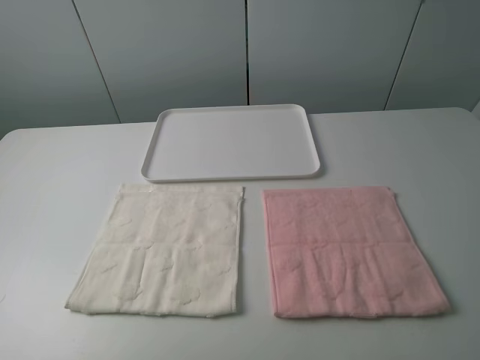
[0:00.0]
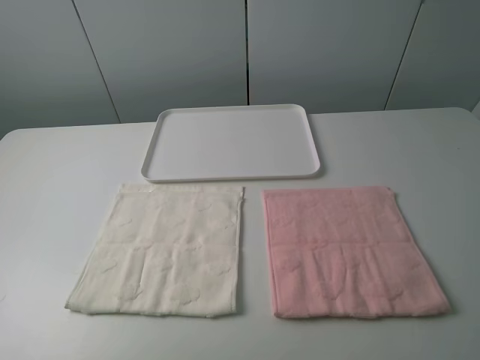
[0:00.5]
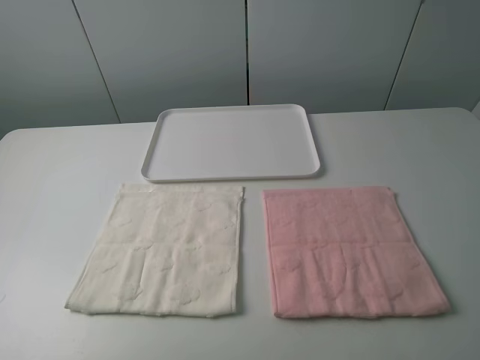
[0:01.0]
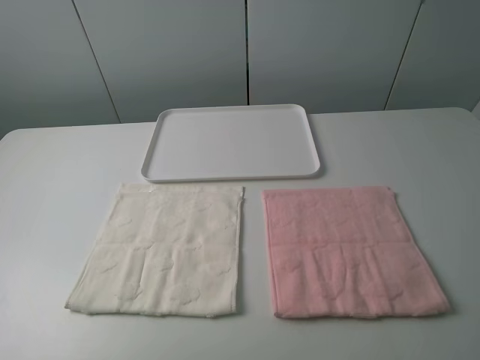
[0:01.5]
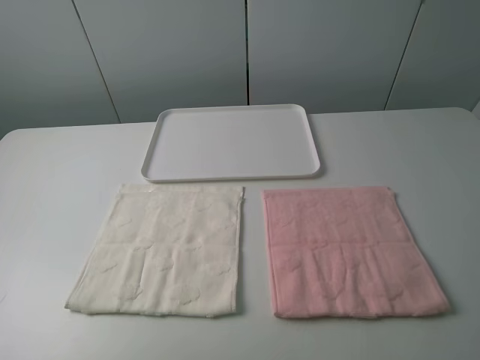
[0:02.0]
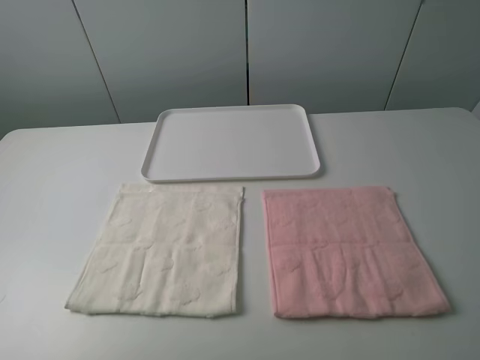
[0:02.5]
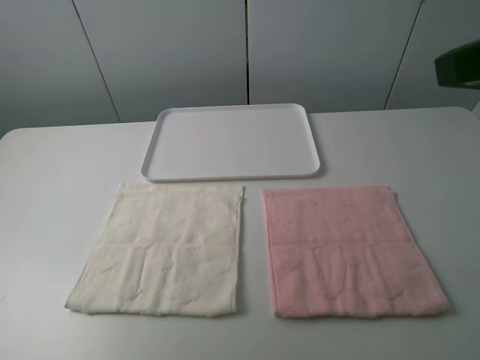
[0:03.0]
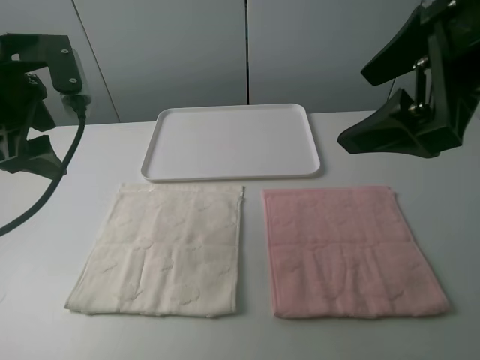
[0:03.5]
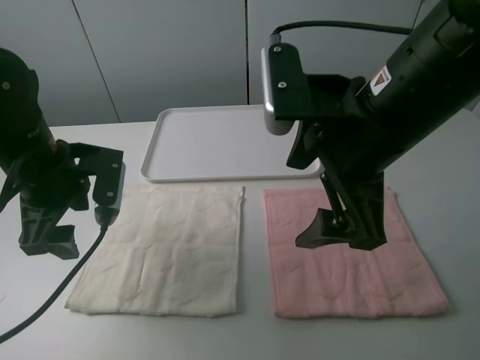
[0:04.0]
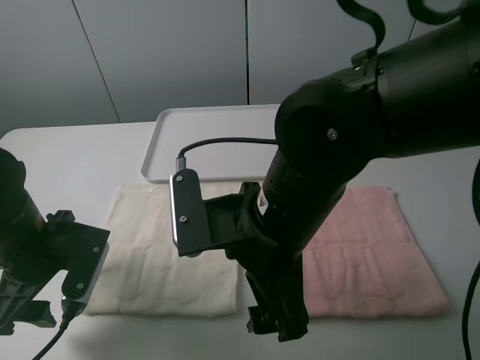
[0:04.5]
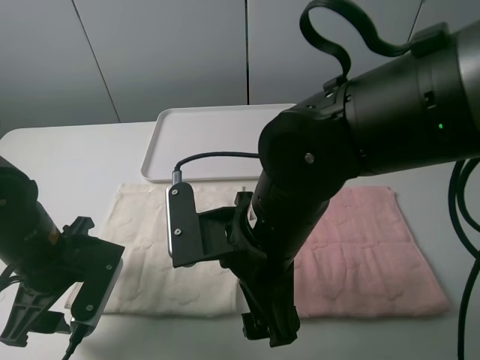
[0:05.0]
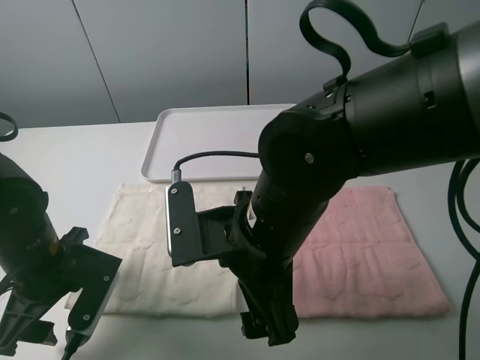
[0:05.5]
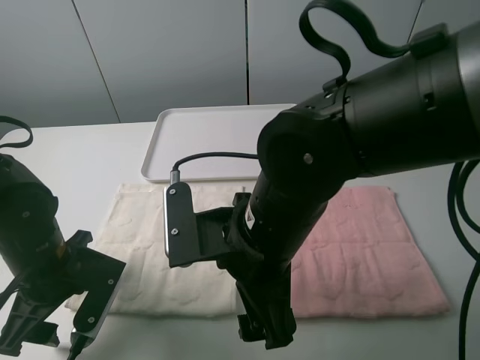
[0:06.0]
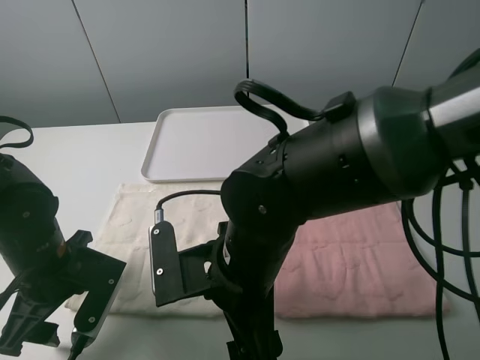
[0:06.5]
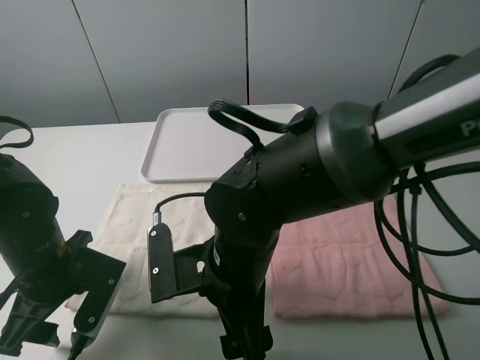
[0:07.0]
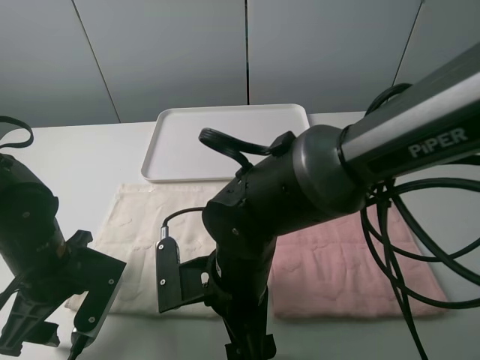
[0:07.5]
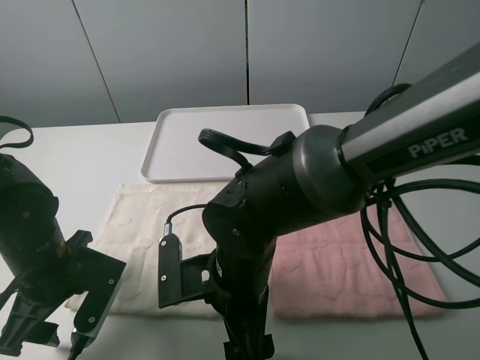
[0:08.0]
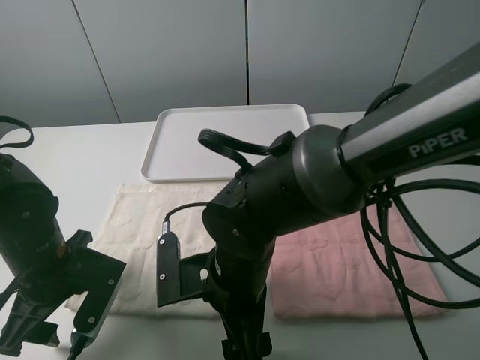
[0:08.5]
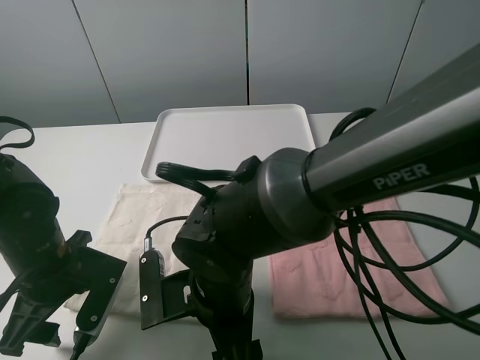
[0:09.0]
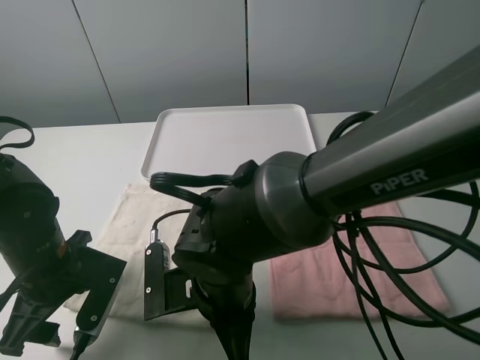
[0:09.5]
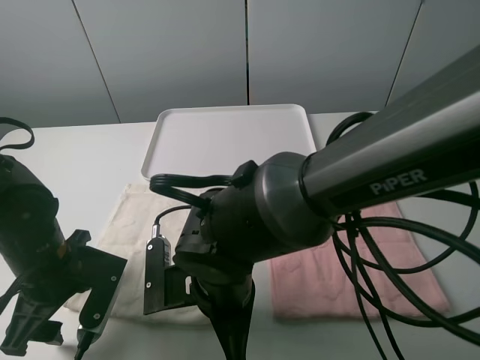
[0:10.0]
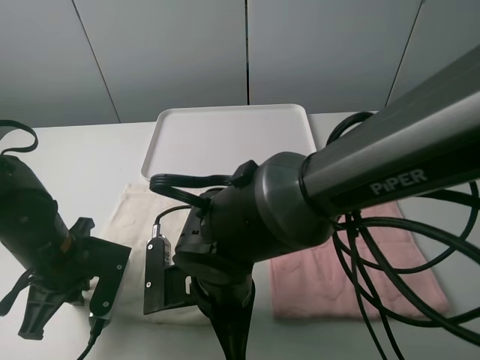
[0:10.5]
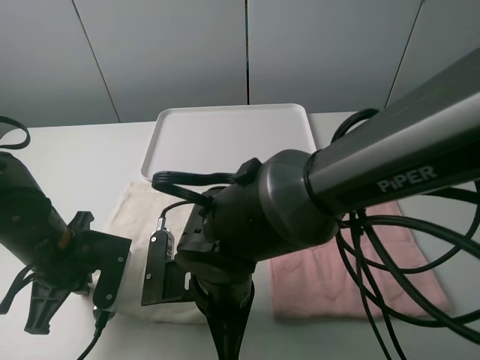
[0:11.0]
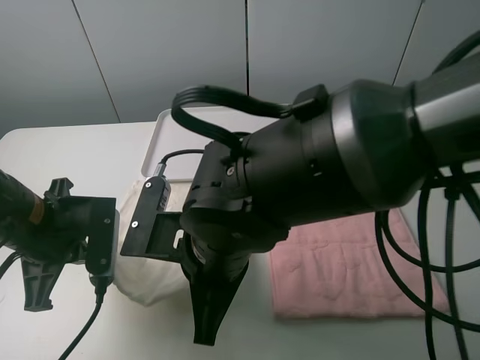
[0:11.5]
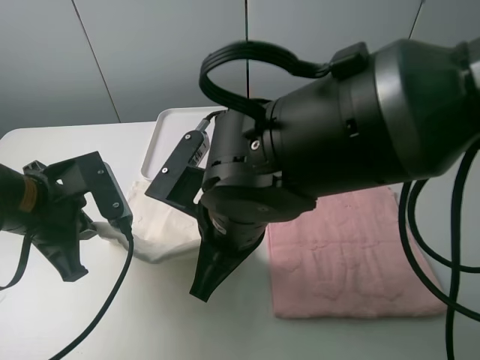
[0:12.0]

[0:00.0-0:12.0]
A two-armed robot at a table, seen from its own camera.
Task of the whole recording: fold one of the towels by two grippers and place it on the tray,then fold another towel by two grippers and place it on the folded towel.
Step, 0:00.0 to 0:10.5: Grasp the white towel with the left gripper.
0:02.0 to 0:04.0: The left gripper shifts about 25 cm forward and downward; the right gripper shifts some 25 cm forward and to the left.
0:04.0 to 0:06.0: The left gripper travels downward and backward by some 10 cm. Meanwhile the right gripper heads downward and to the left, covering roughly 10 cm.
0:06.0 to 0:08.0: The right gripper shifts about 5 cm downward.
0:08.0 to 0:10.0: The right gripper closes.
0:10.0 to 0:12.0: The grippers both shift upward by about 10 cm. The left gripper closes.

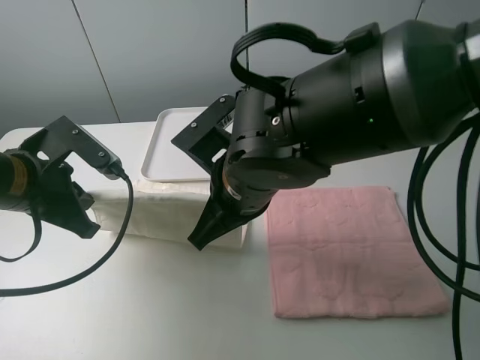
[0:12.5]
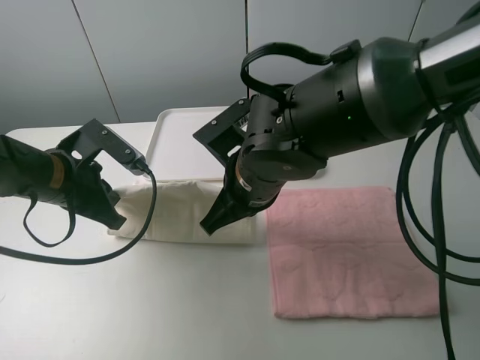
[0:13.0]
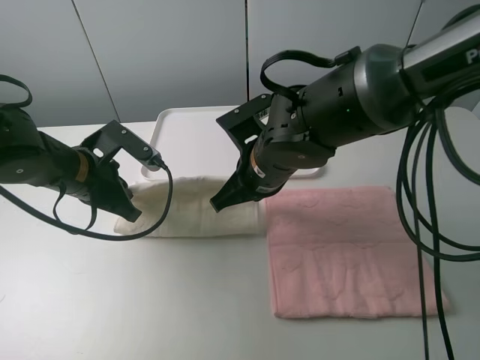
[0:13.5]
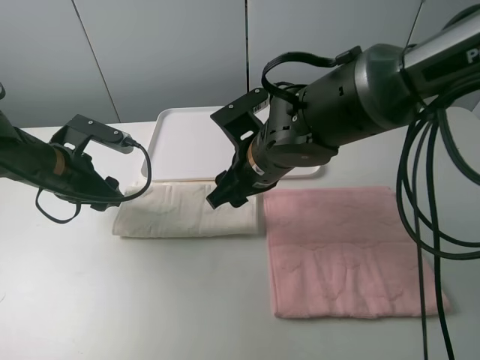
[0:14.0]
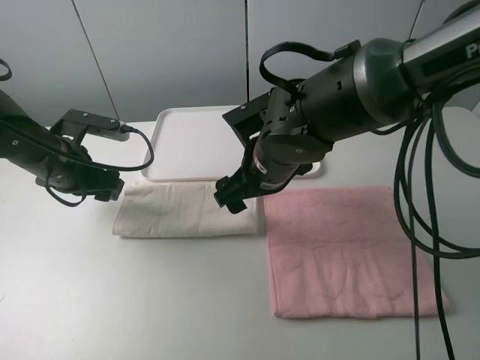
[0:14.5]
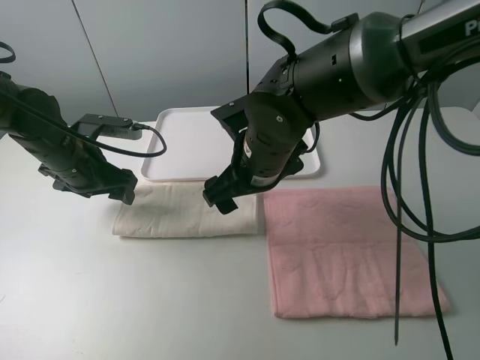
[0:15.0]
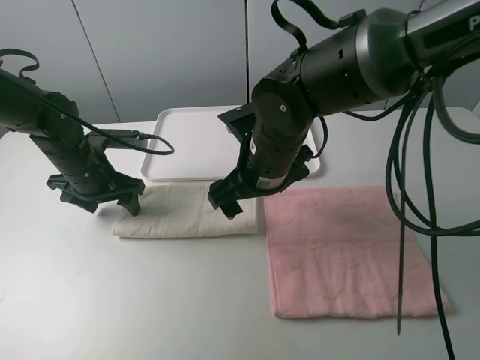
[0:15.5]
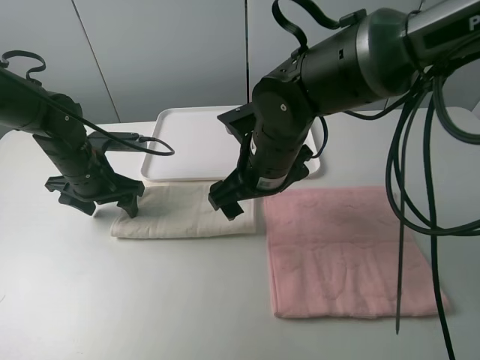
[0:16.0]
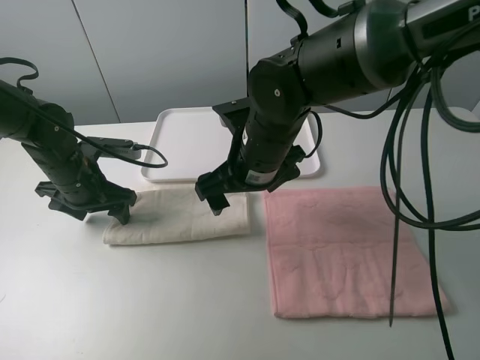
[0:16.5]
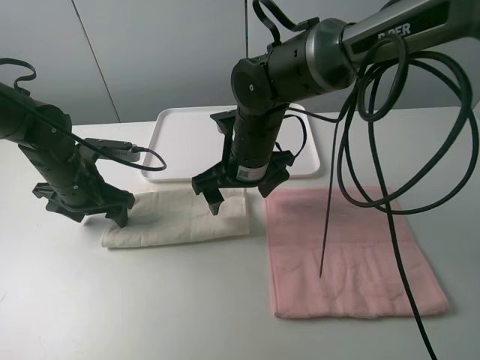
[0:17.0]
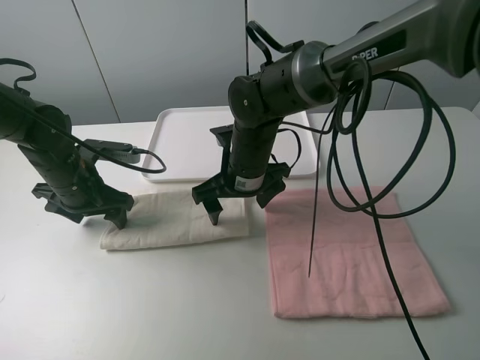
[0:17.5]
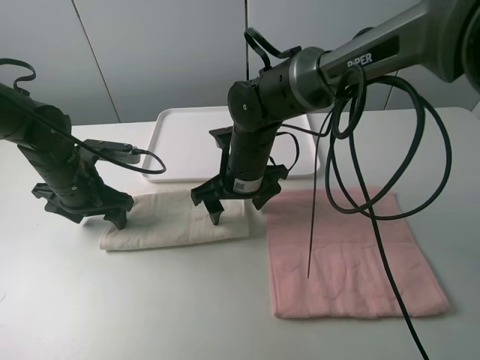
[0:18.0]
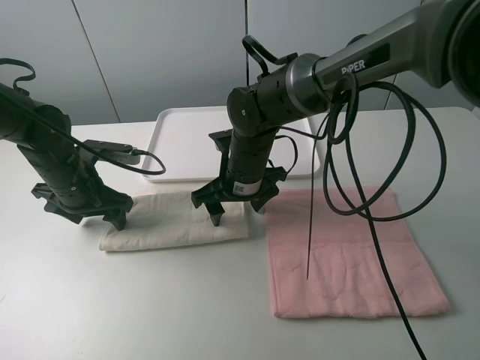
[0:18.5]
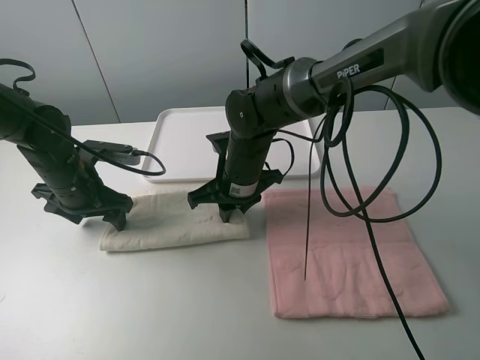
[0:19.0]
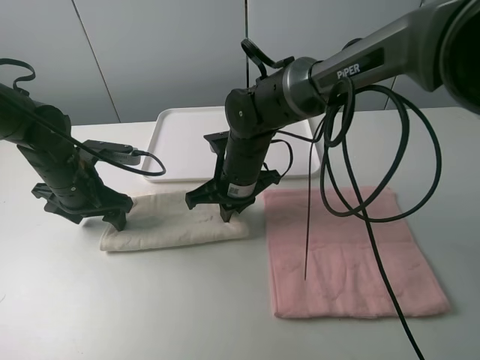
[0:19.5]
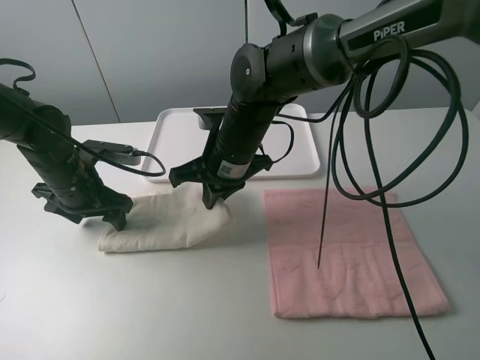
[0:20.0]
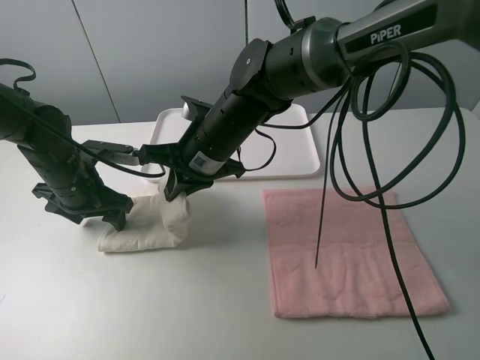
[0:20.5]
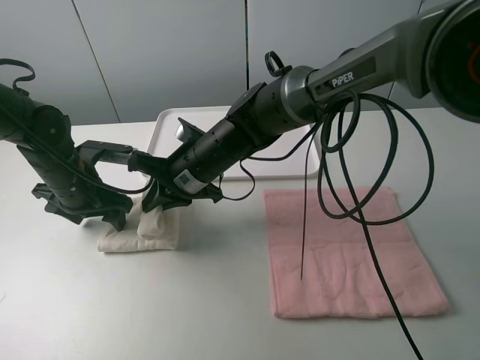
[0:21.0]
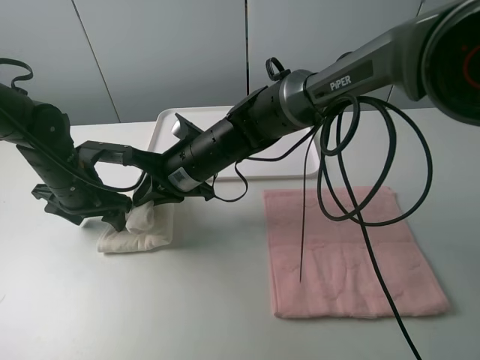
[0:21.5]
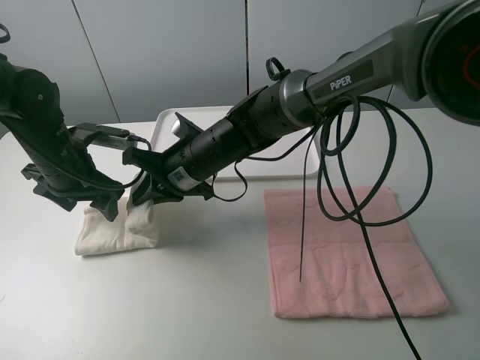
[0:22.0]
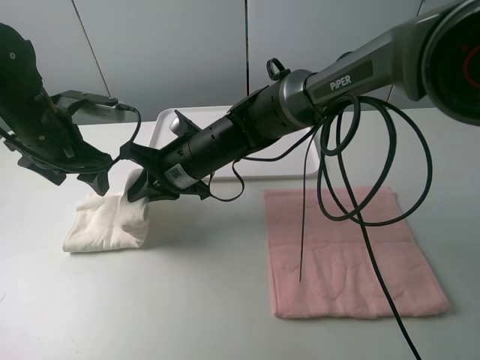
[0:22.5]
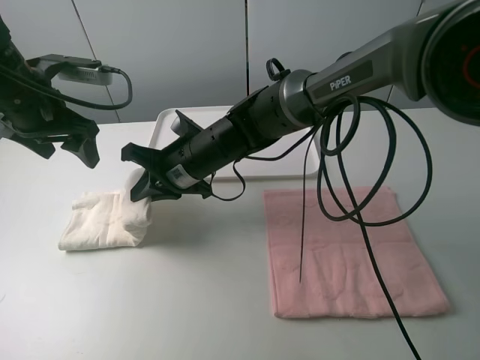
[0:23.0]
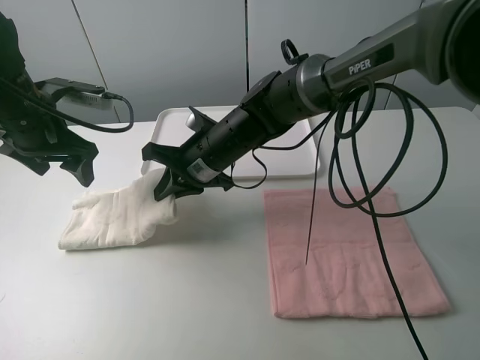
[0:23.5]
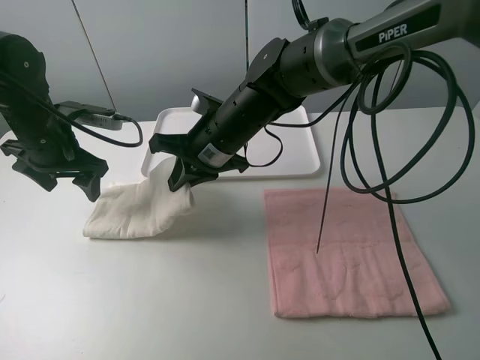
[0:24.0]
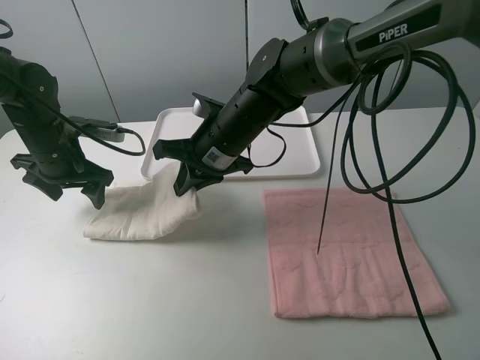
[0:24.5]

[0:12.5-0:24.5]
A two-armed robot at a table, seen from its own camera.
Task of the whole recording: fold one of the towels by two grippers and place it on the tray,then fold another towel by two grippers and place it on the folded towel.
Step, 0:14.5 to 0:15.5: Press the white towel with the left gripper.
Step, 0:16.0 to 0:19.5: Grasp the white towel with the right gripper.
0:12.5 to 0:14.5: Both grippers travel together forward, roughly 5 cm. The right gripper opens up; the left gripper opens its fingers.
0:16.5 to 0:18.5: The right gripper moves downward, about 5 cm.
0:18.5 to 0:20.5: The right gripper moves upward, some 5 cm, and closes up.
0:20.5 to 0:22.5: The left gripper moves upward, roughly 10 cm.
0:22.5 to 0:24.5: The right gripper ends up some 5 cm from where it was, while the left gripper heads downward, covering about 5 cm.

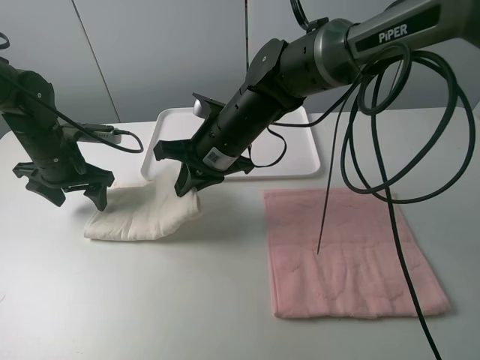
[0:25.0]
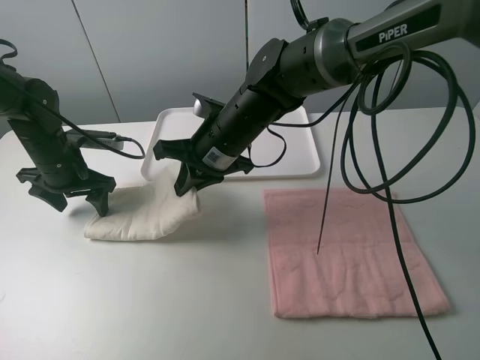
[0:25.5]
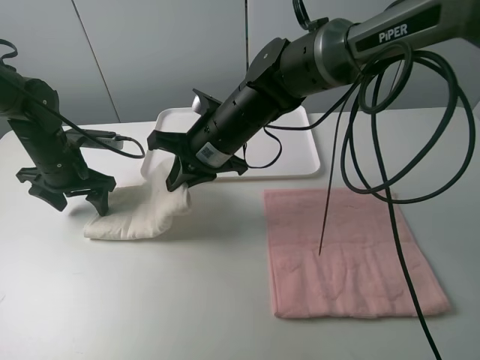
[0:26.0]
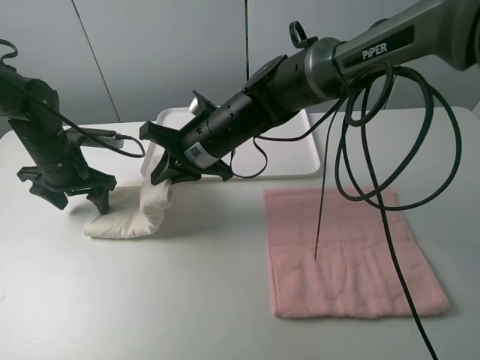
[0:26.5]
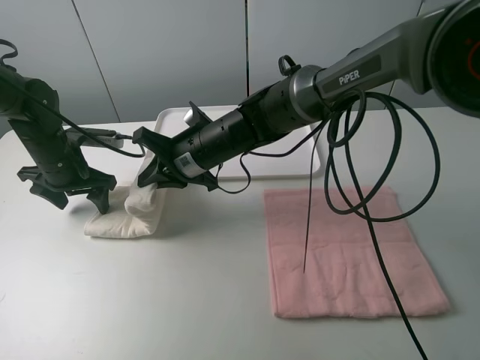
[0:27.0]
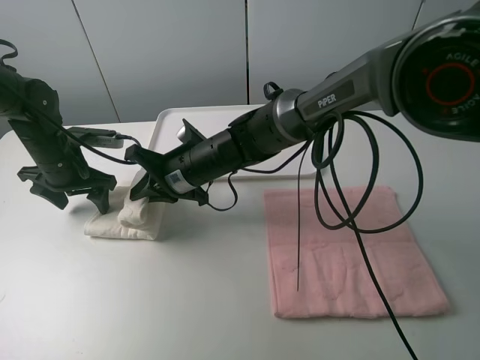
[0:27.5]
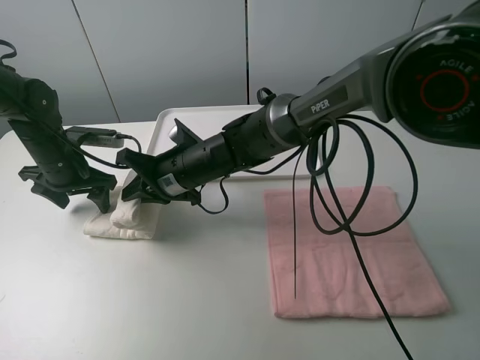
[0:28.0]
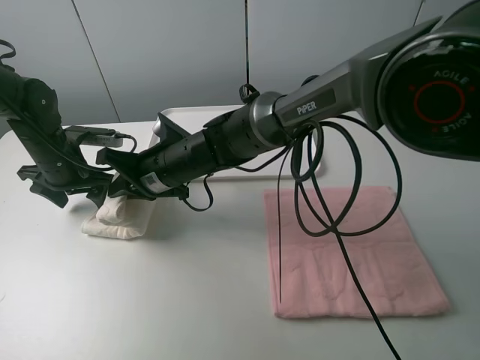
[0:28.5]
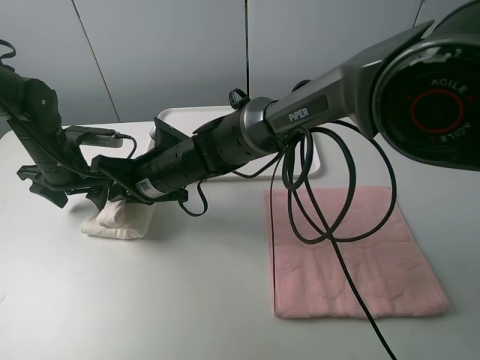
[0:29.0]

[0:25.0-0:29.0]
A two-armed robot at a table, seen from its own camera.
Task of the whole recording: fold one of the towels by two grippers and place it on the tray,then fold another towel by two grippers and place it on the folded towel.
0:27.0 to 0:29.0: The right gripper is displaced to the left by some 5 cm.
